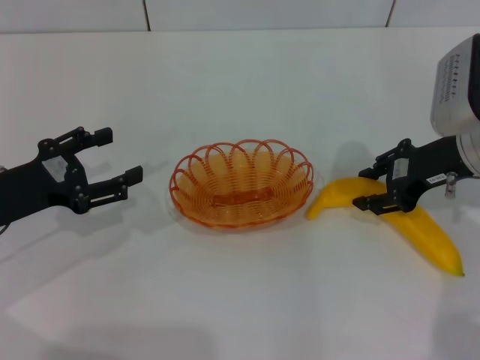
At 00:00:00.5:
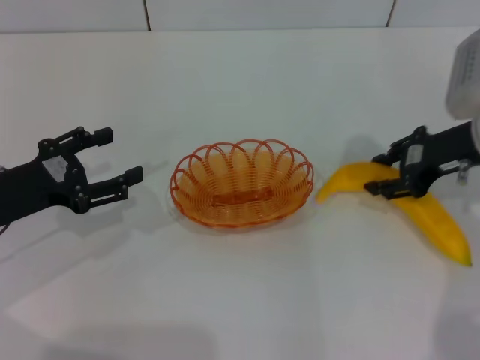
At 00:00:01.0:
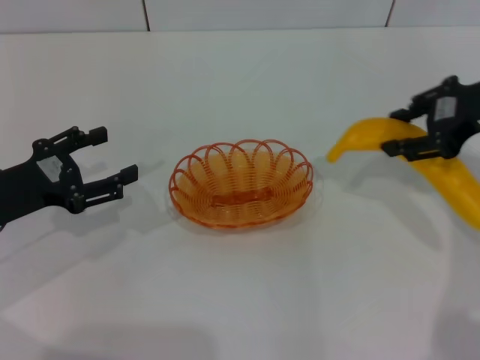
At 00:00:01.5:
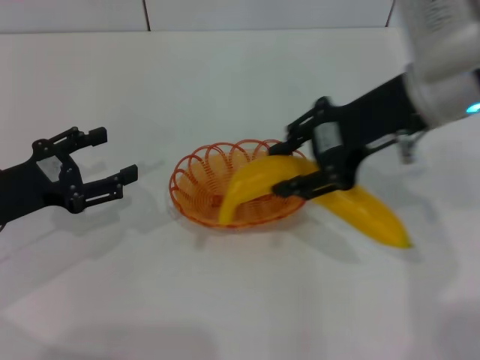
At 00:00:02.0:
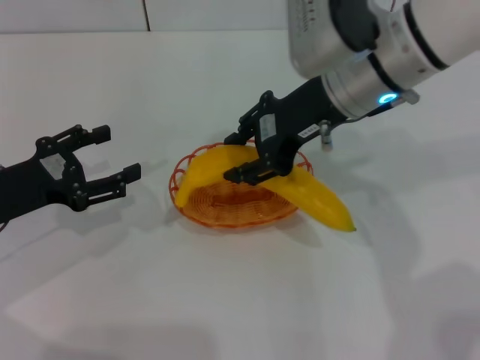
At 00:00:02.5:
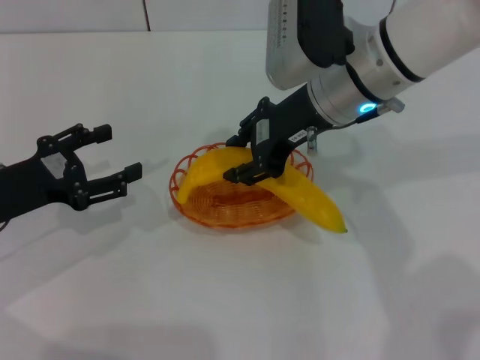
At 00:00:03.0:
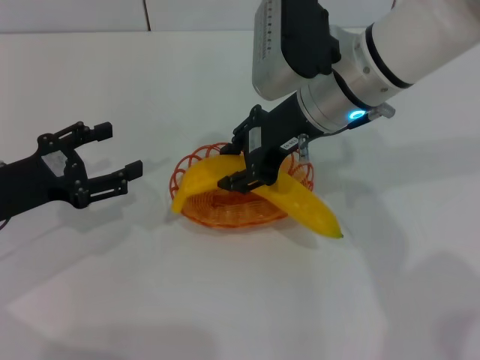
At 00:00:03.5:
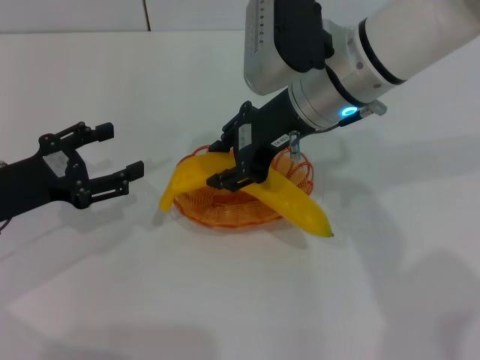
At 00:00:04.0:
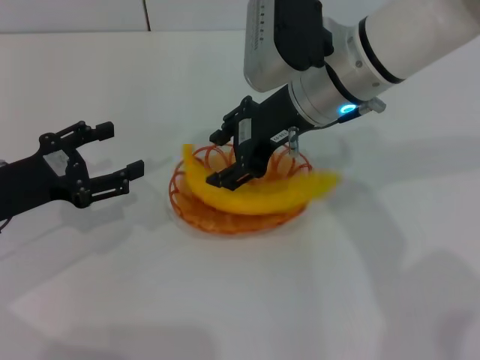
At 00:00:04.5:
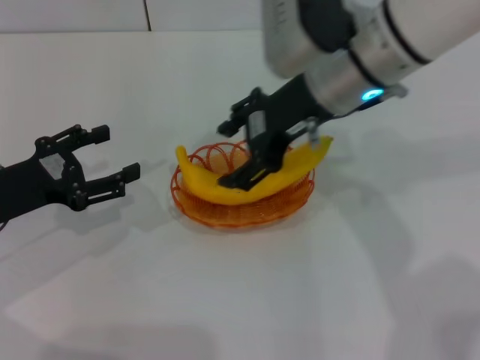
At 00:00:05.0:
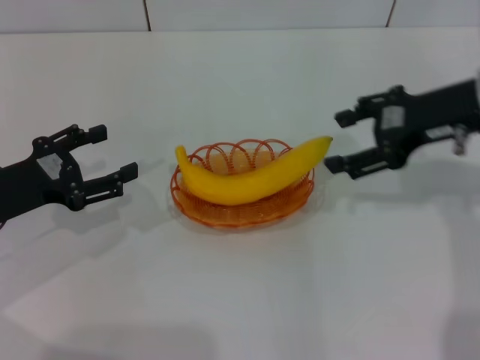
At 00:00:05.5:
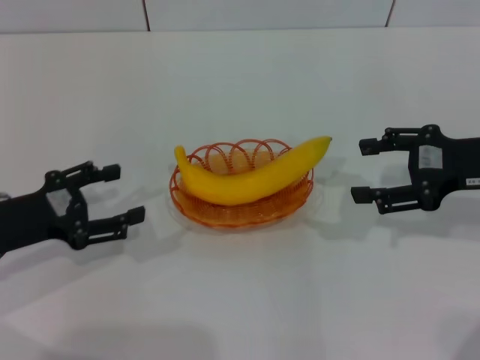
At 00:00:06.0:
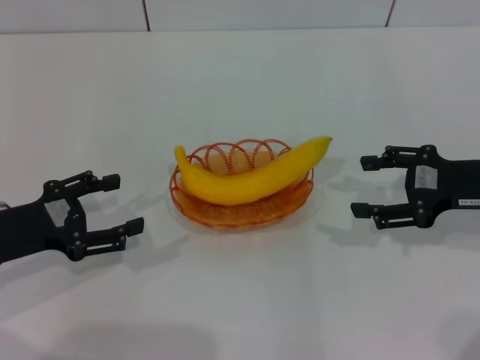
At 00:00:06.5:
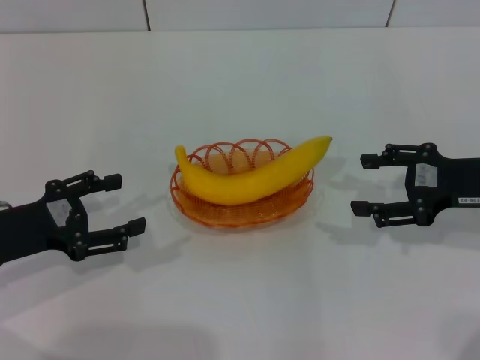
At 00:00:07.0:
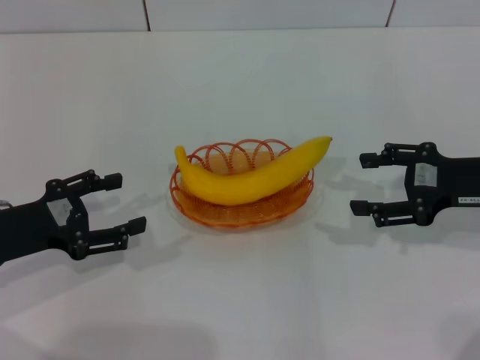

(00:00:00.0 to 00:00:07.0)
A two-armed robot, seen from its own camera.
Step, 00:00:01.0 - 00:00:04.0: Place the banana into the basket with the right gripper.
00:00:00.0 - 00:00:02.0: The right gripper moves to the left and upward, approximately 15 cm, and closes its fingers.
00:00:02.0 - 00:00:03.5: There are only small adjustments of the grippers.
00:00:03.5 - 00:00:05.0: The right gripper shifts roughly 15 cm to the right, and opens up.
00:00:05.0 - 00:00:07.0: The right gripper travels downward and to the right by roughly 10 cm.
